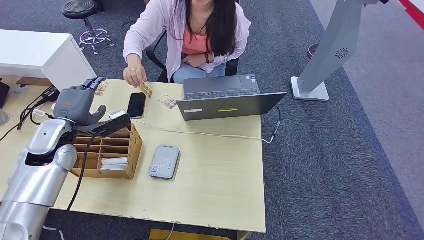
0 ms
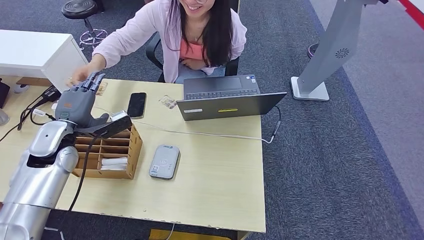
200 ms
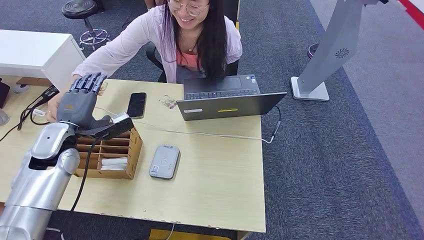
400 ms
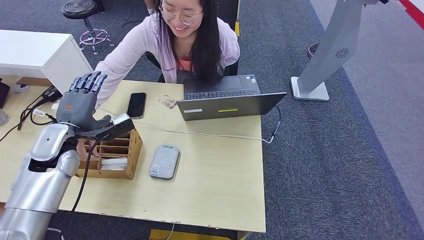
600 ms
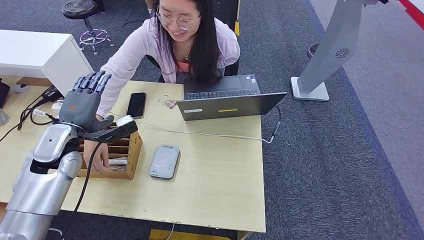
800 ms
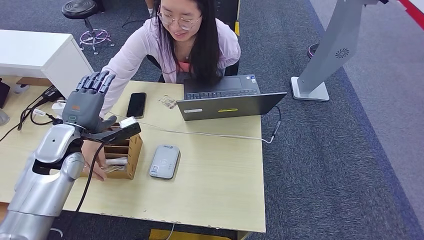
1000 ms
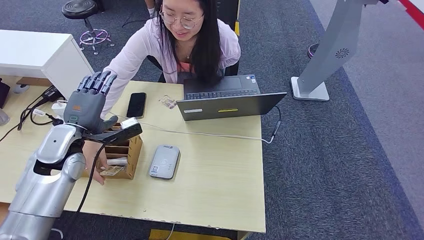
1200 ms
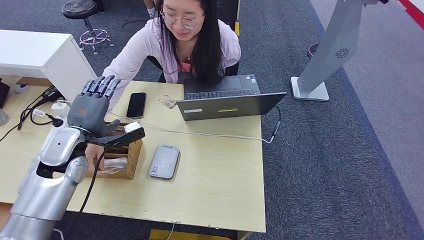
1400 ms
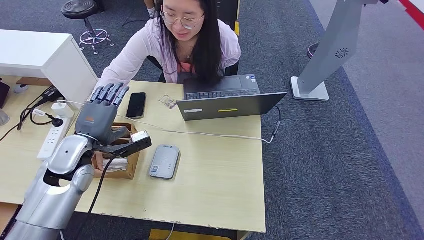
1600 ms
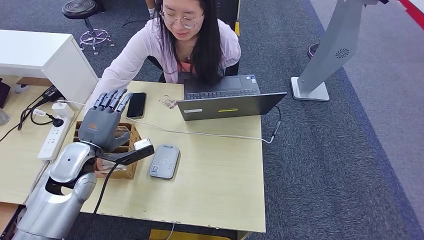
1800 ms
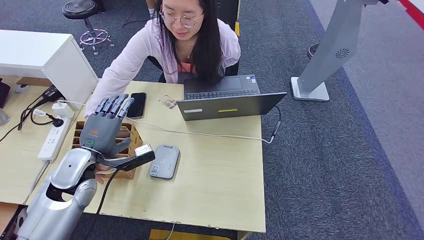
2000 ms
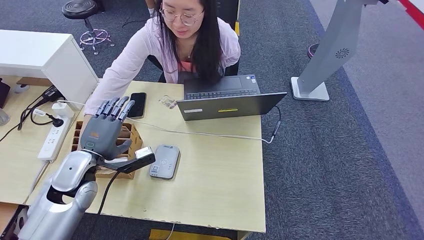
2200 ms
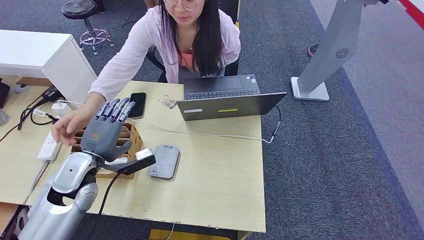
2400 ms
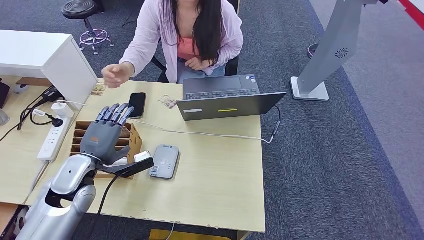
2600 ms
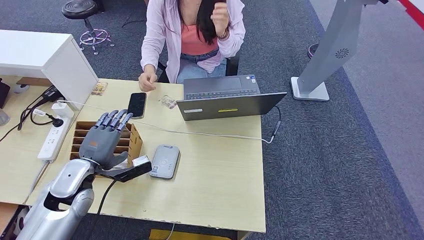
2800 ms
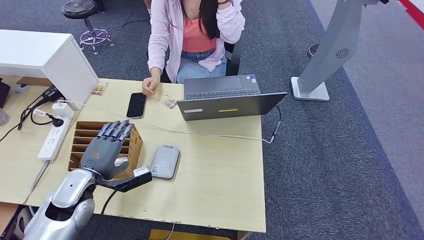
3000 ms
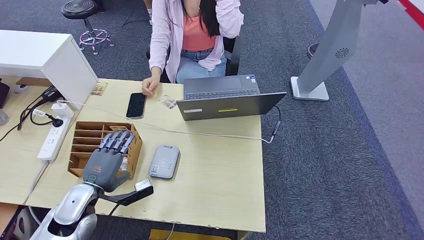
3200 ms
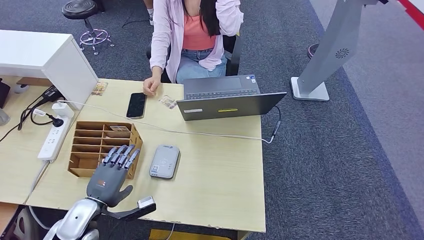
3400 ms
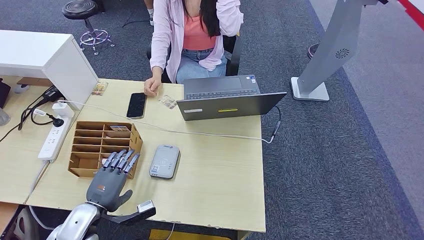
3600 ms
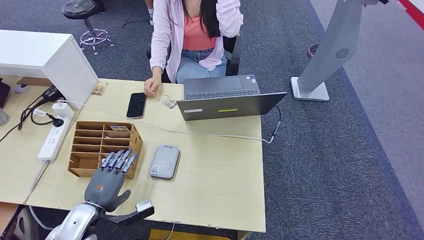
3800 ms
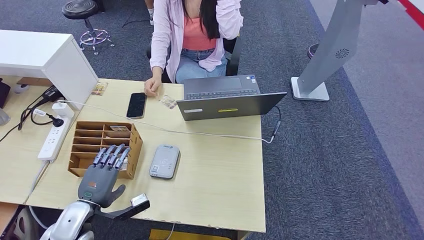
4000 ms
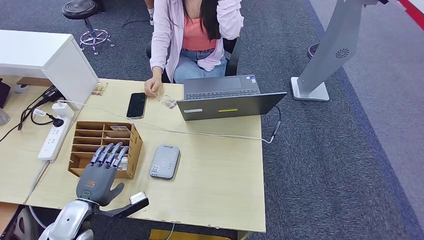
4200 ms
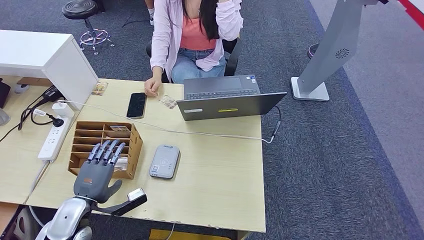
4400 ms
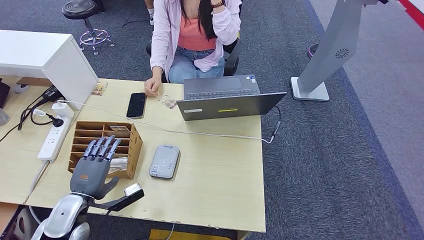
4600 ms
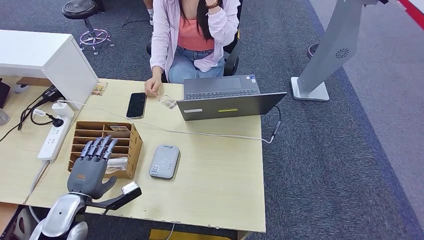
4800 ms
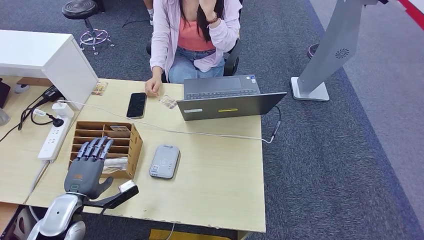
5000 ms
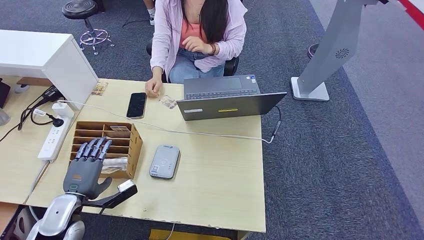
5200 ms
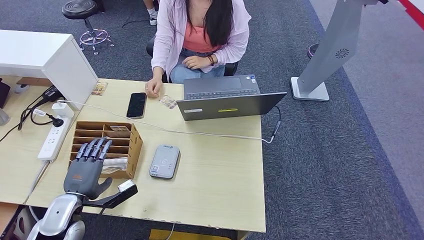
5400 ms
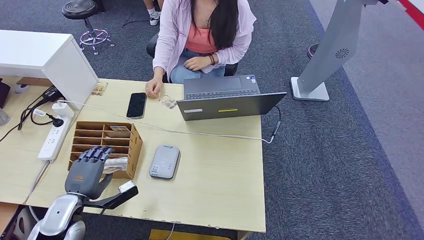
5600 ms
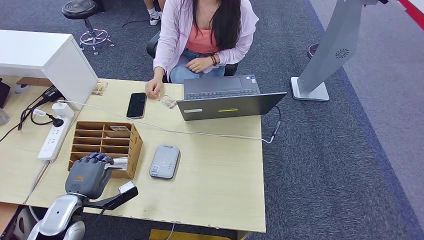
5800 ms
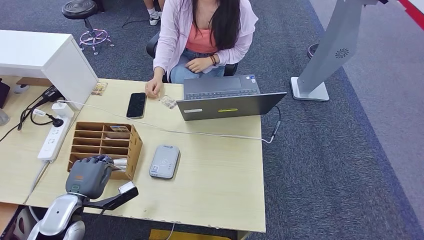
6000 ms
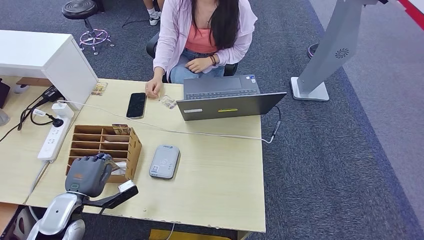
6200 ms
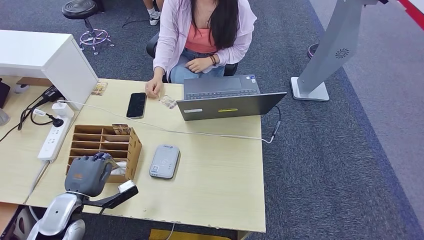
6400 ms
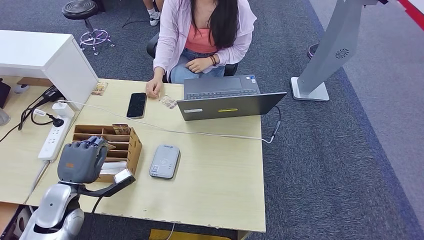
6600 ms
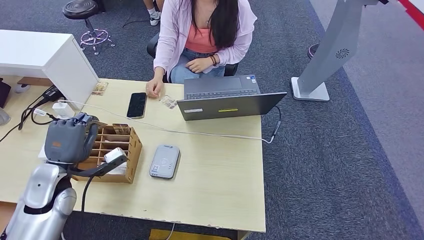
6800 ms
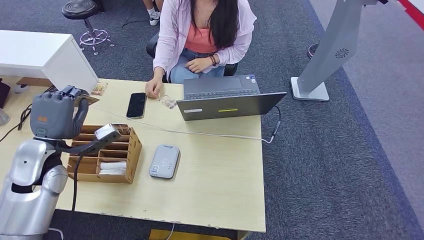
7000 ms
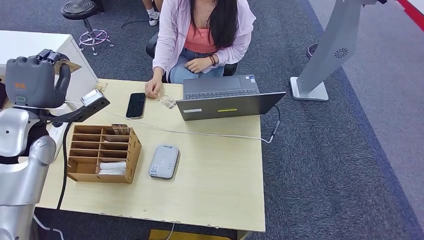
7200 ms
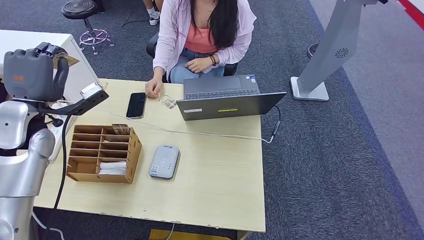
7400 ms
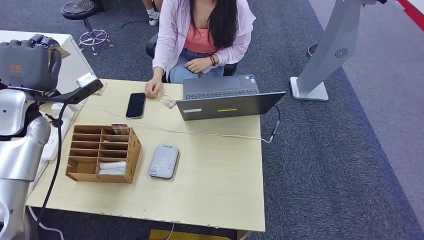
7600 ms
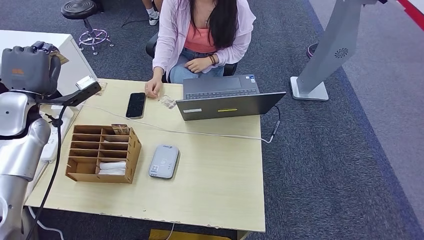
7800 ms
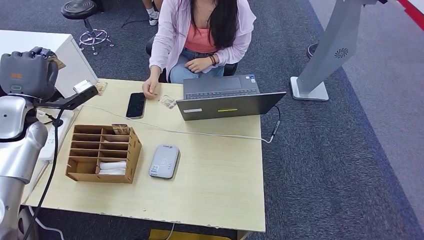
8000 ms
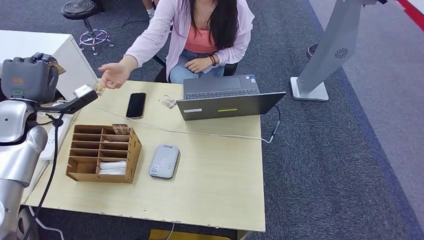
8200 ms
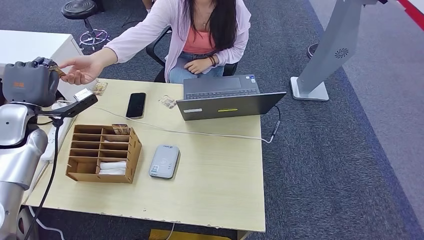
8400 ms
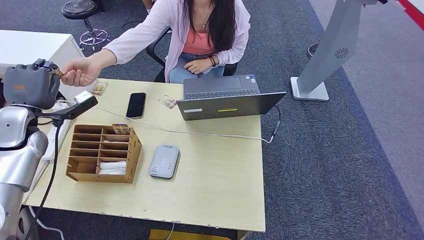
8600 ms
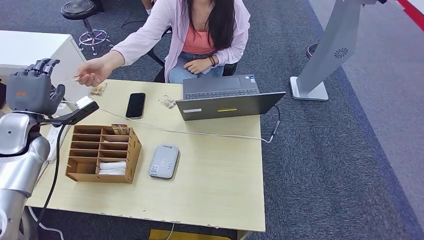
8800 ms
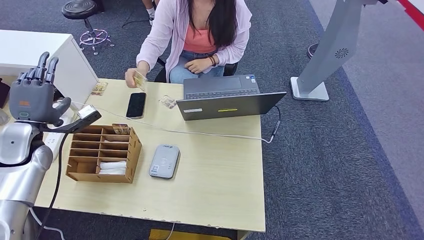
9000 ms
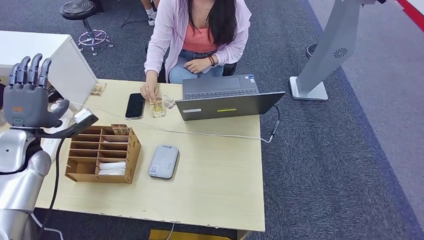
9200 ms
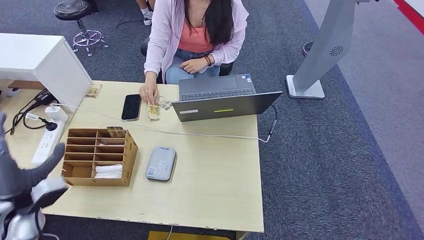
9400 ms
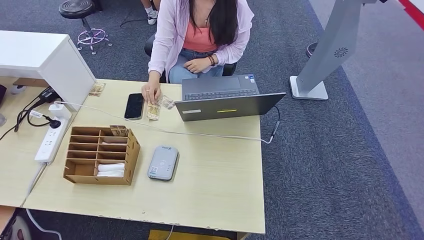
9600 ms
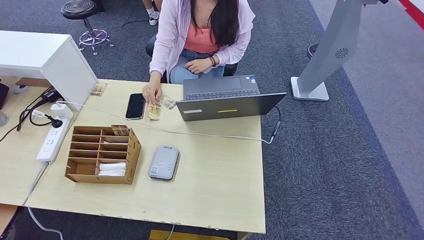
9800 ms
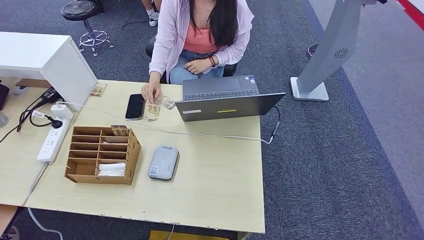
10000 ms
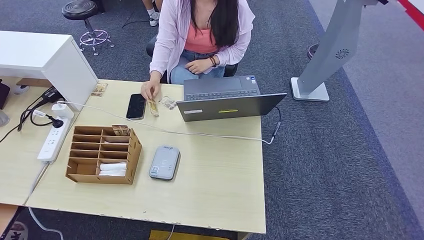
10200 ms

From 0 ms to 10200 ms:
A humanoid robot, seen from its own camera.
Step, from 0 ms to 7200 ms: Pick up the room key from the key card box.
Step, from 7400 ms to 10200 ms: Hand the room key to the person.
From 0 ms to 1400 ms: The hands make only small movements.
From 1400 ms to 3000 ms: The left hand is displaced downward and backward by approximately 10 cm.
From 3000 ms to 4400 ms: The left hand shifts about 5 cm backward.
From 4400 ms to 5800 ms: There are only small adjustments of the hands.
From 5800 ms to 7200 ms: The left hand travels upward and forward by some 25 cm.
From 7200 ms to 8800 ms: The left hand travels to the left by some 5 cm.
From 8800 ms to 10200 ms: The left hand moves backward and downward, some 50 cm.
